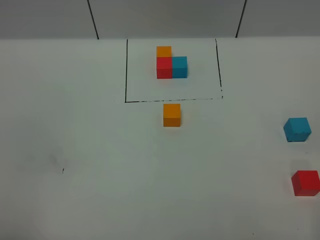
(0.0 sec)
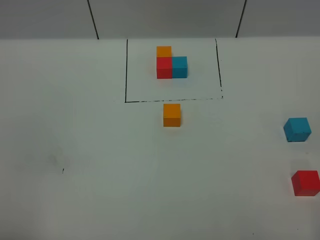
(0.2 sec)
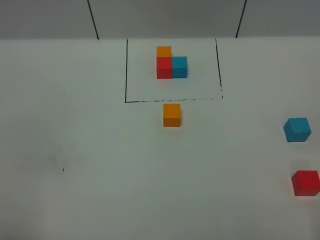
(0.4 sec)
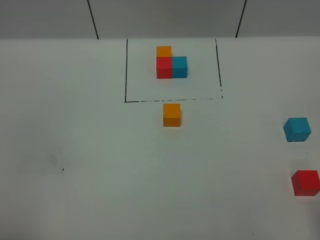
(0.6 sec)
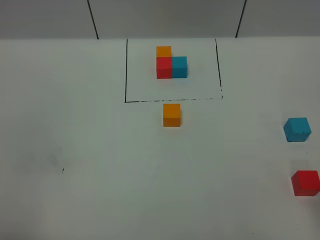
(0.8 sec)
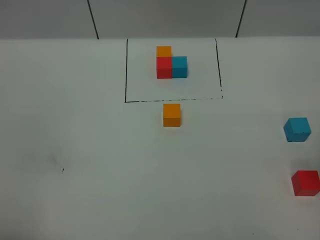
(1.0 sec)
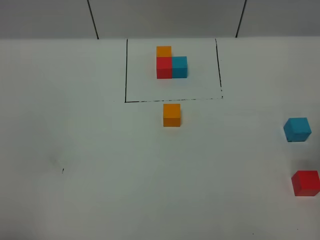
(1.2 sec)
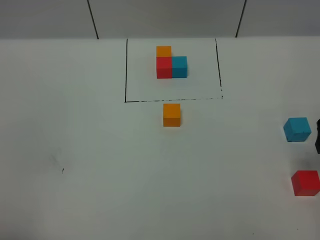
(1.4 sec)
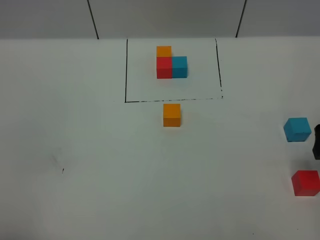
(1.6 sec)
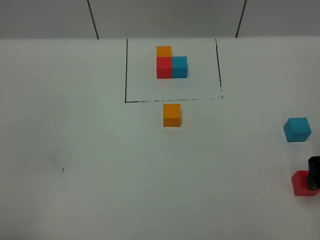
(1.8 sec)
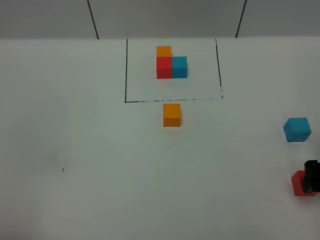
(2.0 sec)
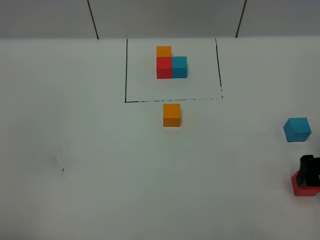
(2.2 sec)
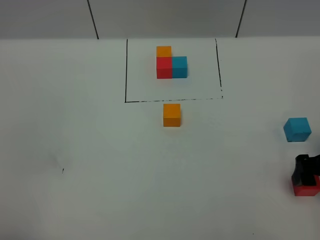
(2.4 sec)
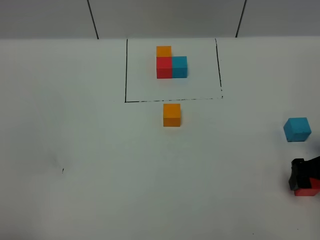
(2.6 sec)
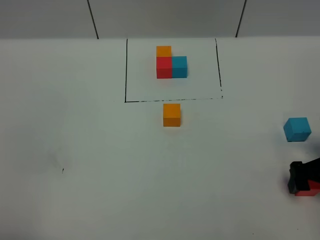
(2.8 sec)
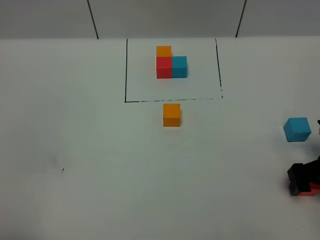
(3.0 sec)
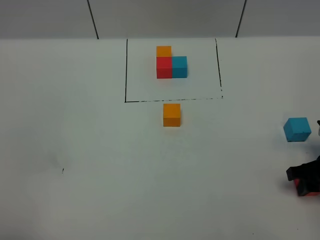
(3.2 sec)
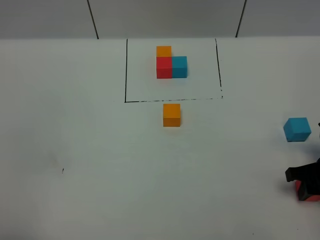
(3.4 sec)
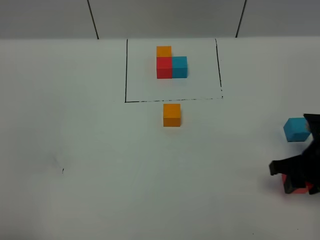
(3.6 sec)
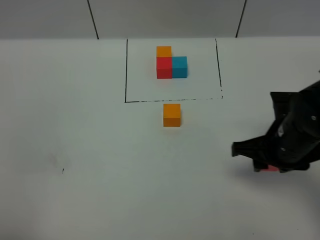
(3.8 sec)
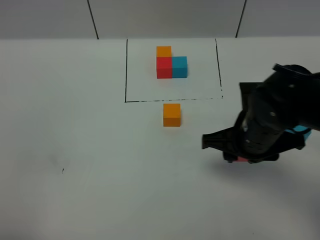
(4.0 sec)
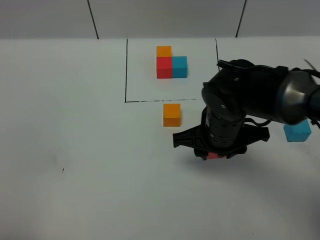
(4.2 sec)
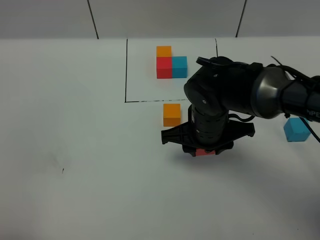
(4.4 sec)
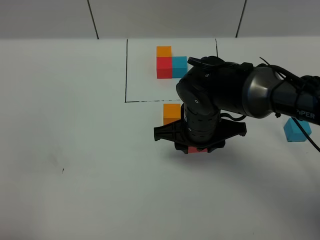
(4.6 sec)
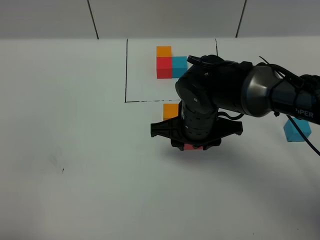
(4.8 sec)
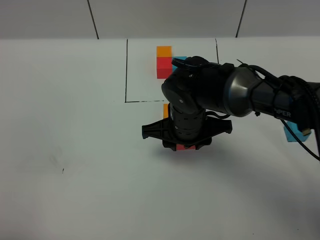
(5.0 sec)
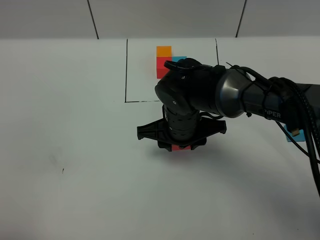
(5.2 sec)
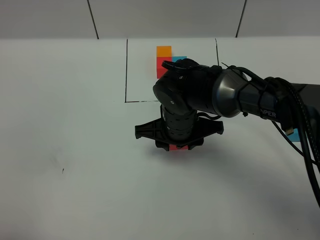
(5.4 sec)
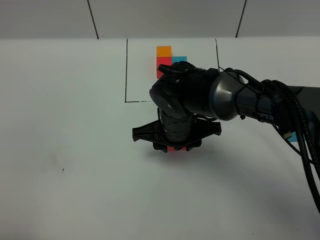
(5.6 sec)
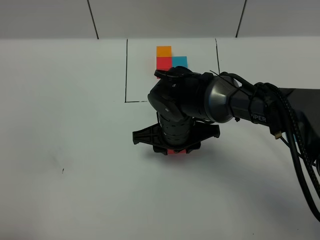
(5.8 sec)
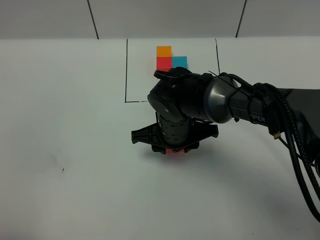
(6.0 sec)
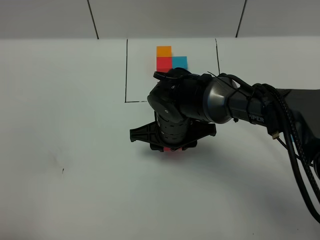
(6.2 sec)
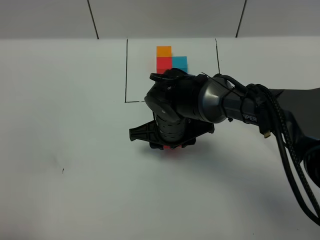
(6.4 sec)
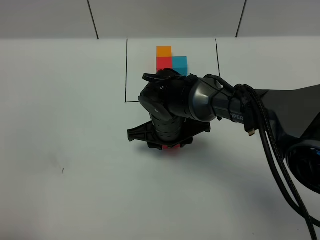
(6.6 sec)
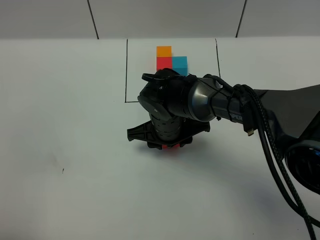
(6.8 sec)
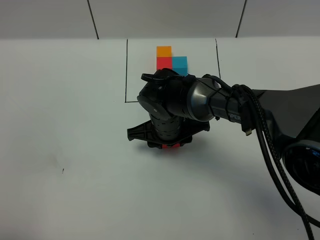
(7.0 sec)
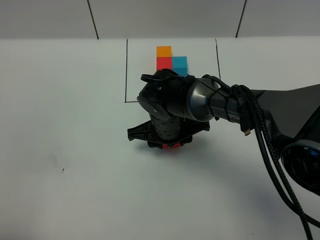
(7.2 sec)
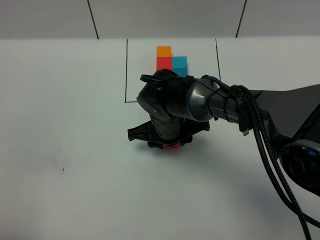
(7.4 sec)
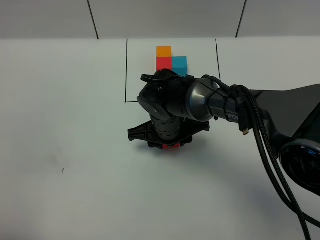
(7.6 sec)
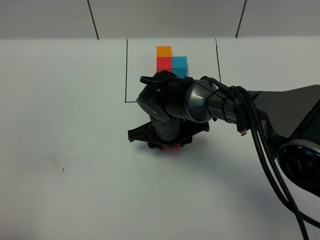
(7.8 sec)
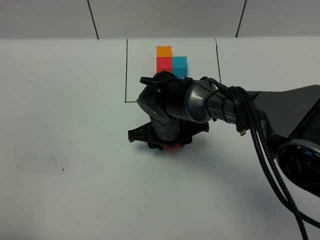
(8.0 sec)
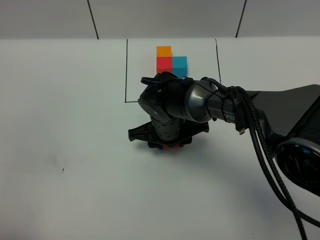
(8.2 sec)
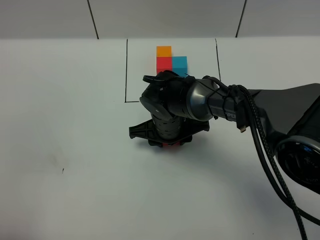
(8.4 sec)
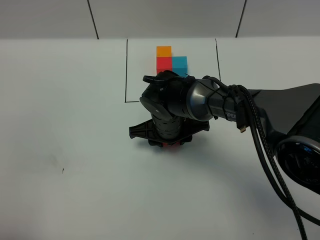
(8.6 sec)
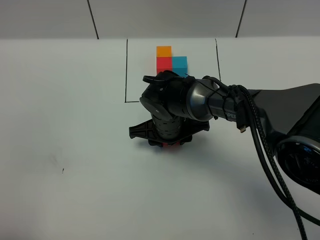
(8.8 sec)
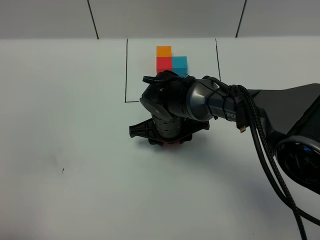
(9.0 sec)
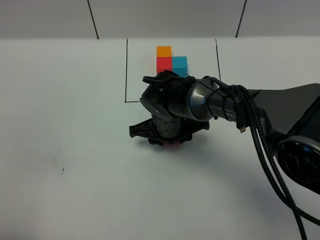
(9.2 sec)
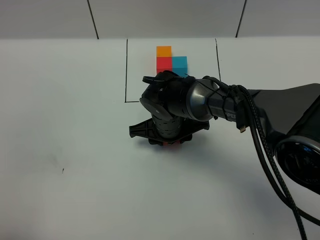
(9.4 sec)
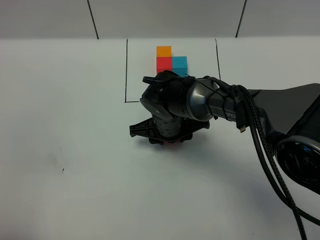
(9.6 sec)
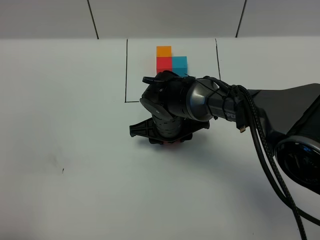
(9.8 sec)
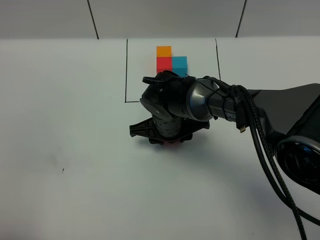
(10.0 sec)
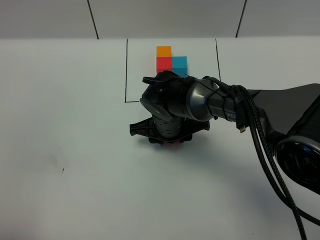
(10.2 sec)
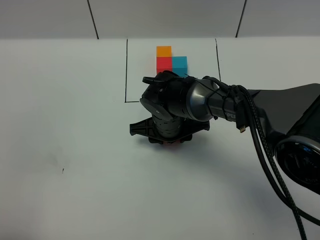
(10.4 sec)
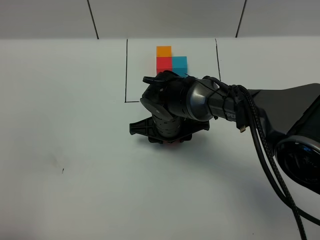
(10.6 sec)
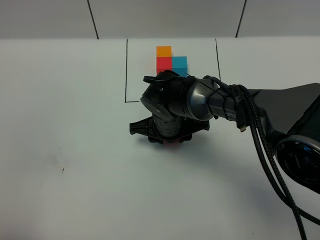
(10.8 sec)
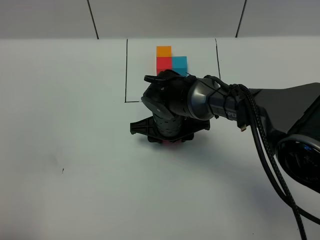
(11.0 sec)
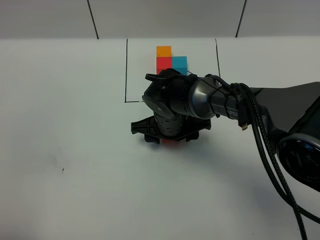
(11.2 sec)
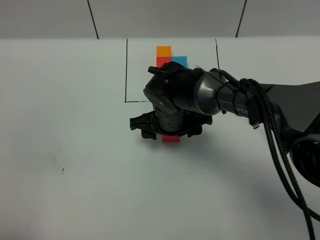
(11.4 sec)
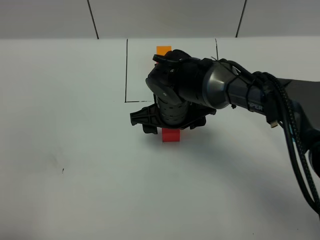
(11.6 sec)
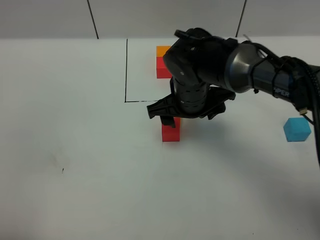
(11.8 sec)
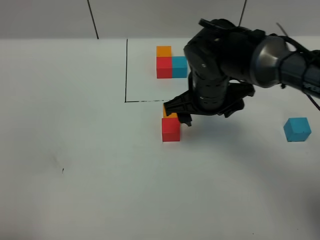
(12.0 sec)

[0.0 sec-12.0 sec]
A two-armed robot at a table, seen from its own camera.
Task of the whole recording: According to the building block template in front, assemble the scattered blocks together.
Step, 0.0 sec to 11.4 sec: Put the red build block on the behind of the orange build block.
0.0 sec to 1.6 sec: The right gripper goes about 25 cm forward, and opens.
1.6 sec to 3.0 sec: The right gripper is displaced downward by some 10 cm.
3.0 sec to 4.4 sec: The right gripper goes about 25 cm to the left, and closes.
4.4 sec to 6.0 sec: The right gripper goes roughly 5 cm to the left.
6.0 sec to 7.6 sec: There are only small adjustments of the grippers.
7.6 sec to 10.4 sec: Neither gripper changes place.
10.4 sec to 12.0 sec: The right gripper goes approximately 10 cm upward and to the right, and opens its fingers.

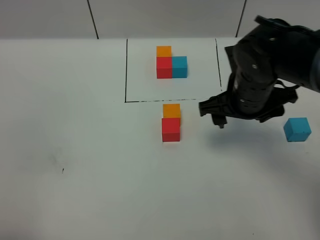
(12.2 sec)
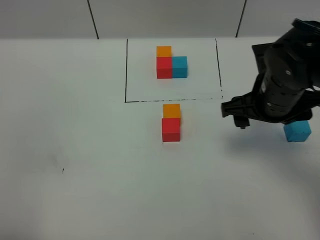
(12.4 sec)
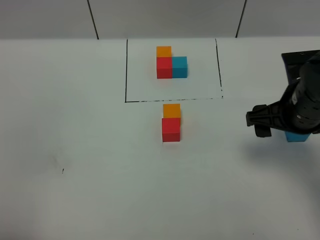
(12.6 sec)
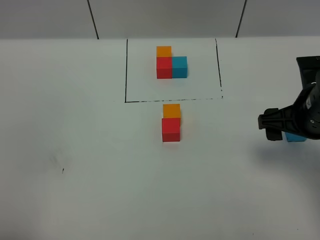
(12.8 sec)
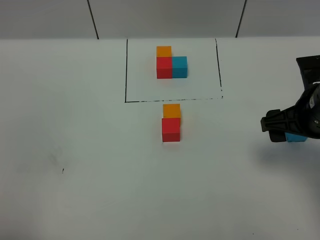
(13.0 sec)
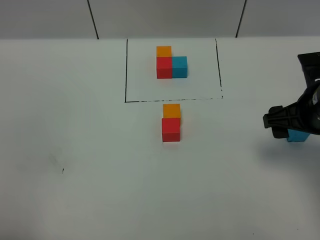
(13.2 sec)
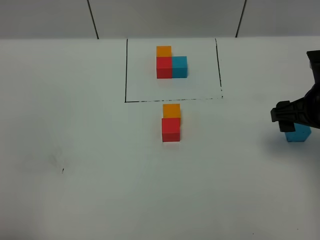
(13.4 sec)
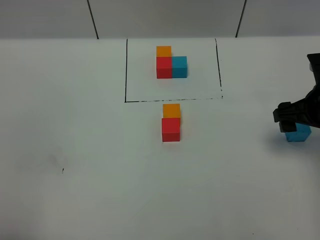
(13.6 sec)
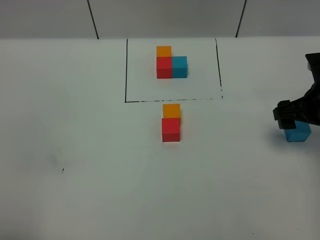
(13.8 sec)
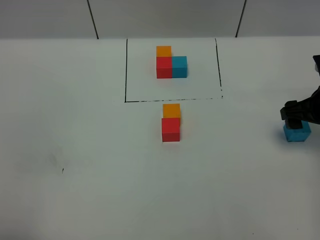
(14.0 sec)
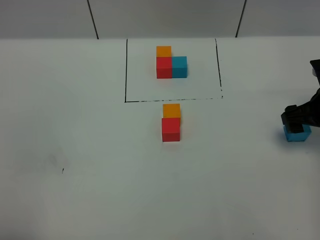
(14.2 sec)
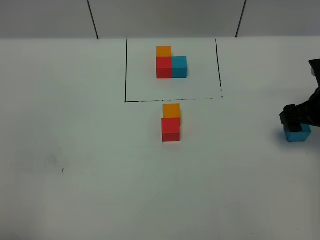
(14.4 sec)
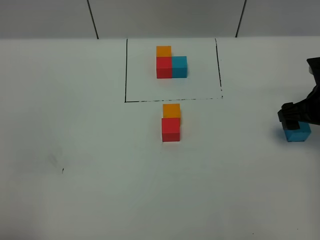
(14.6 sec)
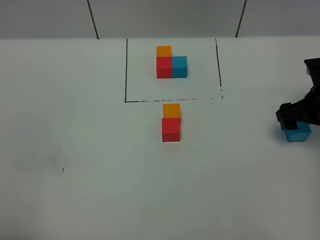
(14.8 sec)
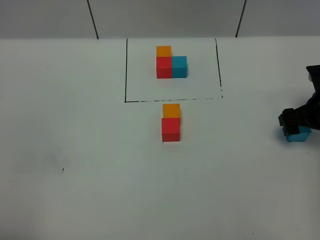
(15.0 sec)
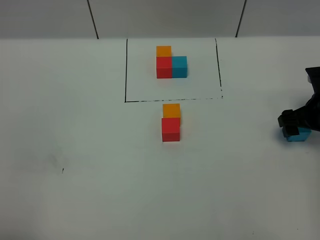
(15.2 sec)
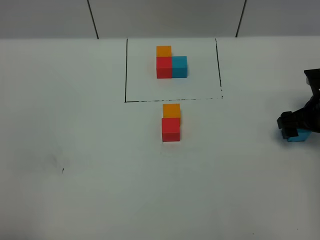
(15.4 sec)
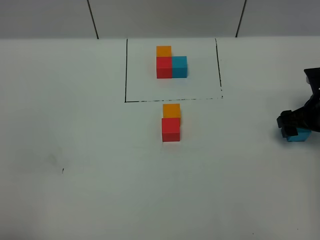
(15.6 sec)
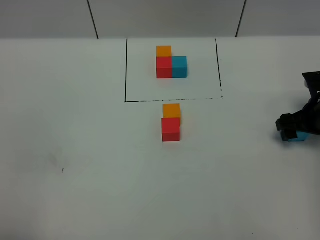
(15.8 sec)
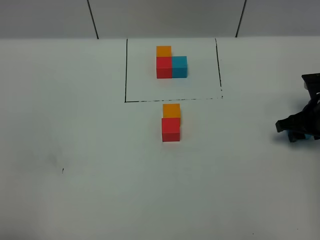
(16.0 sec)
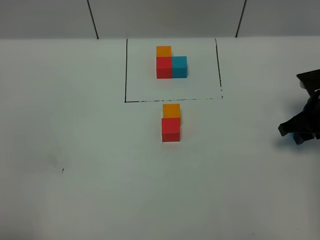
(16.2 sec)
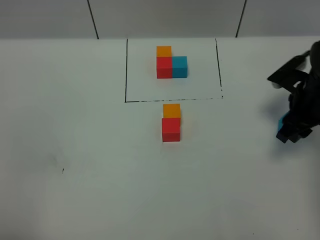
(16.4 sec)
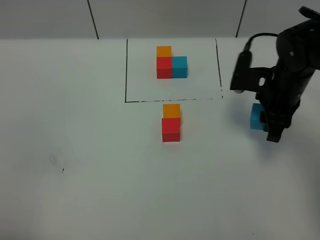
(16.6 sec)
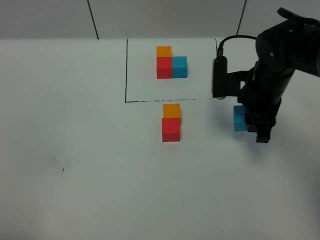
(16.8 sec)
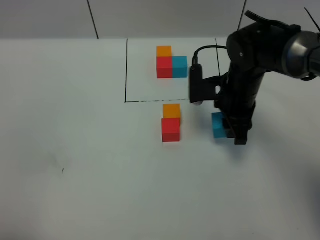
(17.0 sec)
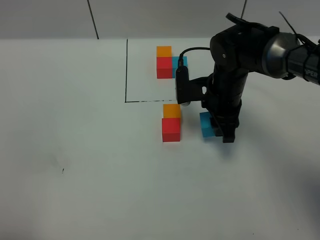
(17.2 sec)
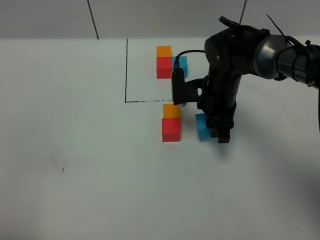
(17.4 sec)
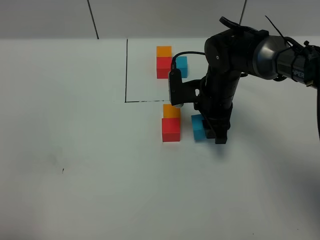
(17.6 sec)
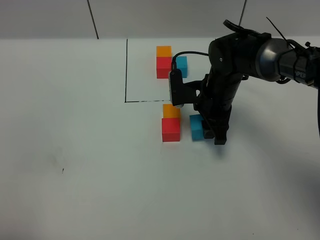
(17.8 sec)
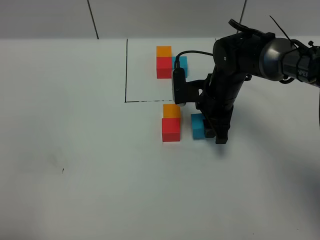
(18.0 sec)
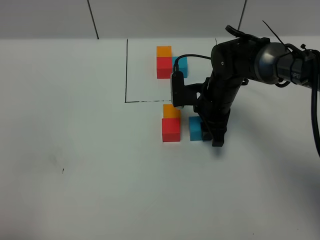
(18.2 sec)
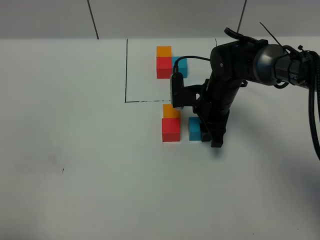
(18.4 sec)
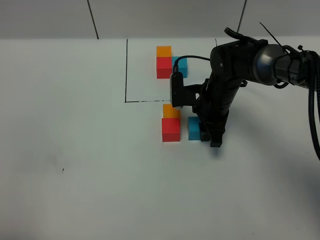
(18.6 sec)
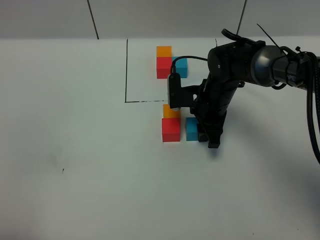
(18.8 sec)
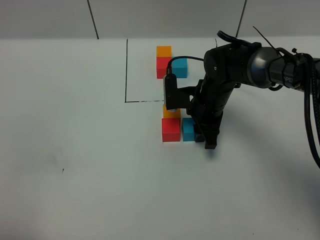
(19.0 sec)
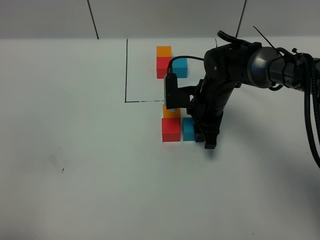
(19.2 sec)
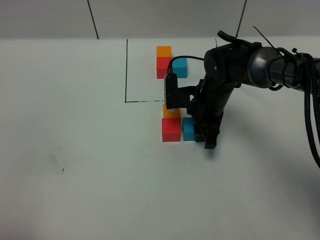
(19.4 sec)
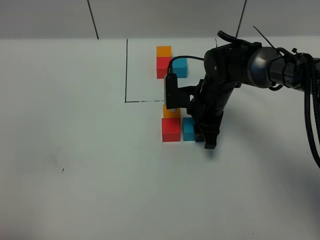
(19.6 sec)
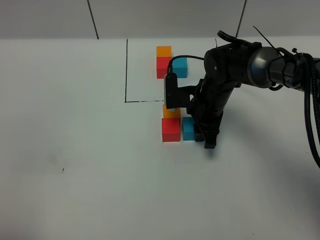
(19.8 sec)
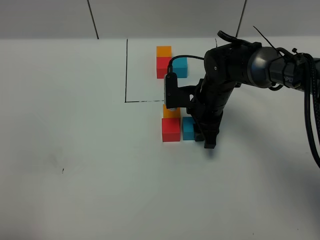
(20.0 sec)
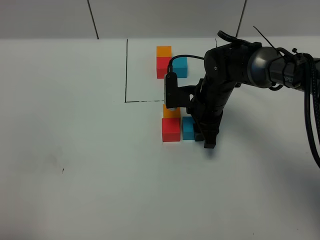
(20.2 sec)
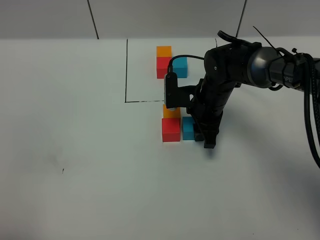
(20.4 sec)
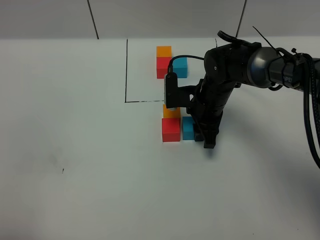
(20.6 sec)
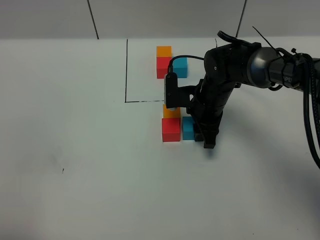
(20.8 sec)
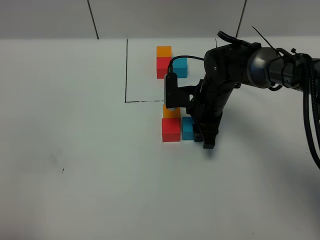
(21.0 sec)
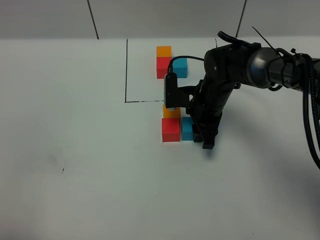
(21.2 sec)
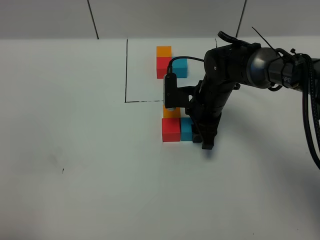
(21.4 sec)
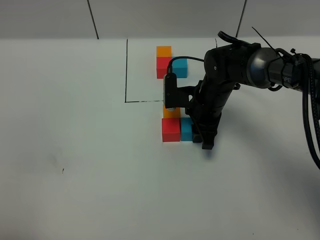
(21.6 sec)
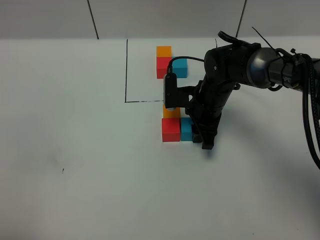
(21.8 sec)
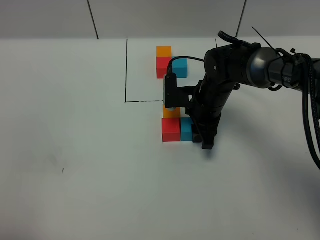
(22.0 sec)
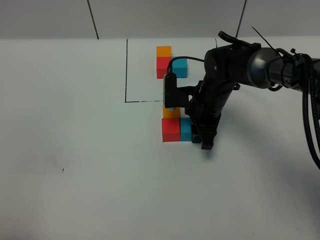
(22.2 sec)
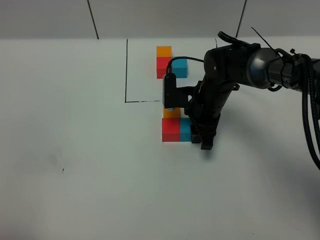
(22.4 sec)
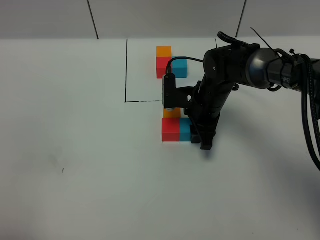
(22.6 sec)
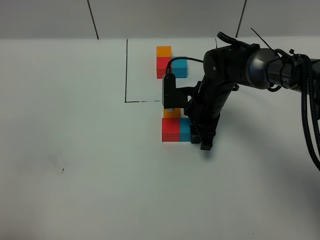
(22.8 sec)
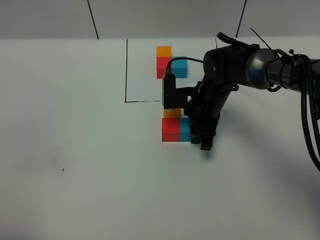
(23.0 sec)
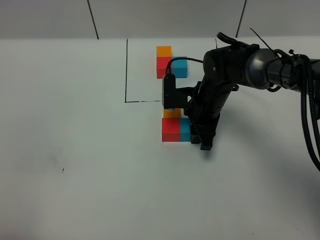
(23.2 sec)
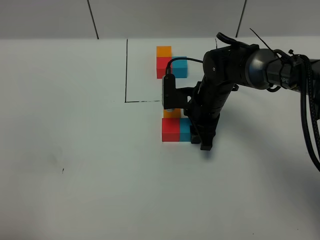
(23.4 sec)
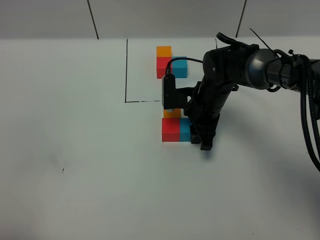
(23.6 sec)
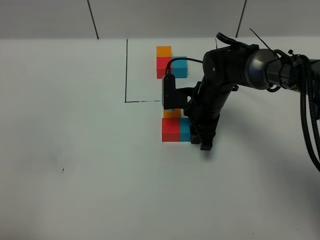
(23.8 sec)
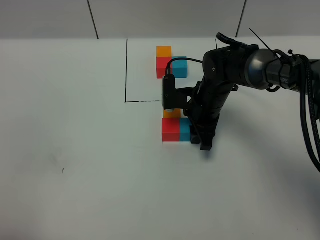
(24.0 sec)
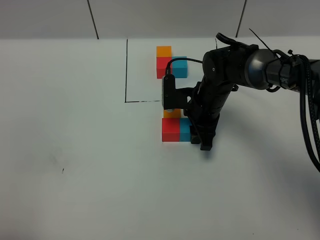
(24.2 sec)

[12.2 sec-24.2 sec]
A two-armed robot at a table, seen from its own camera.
Task of the whole recording: According to the building block template in front, assemble the scattered blocks together.
12.2 sec to 13.8 sec: The right gripper goes some 15 cm to the right.
13.8 sec to 15.2 sec: The right gripper heads downward, covering roughly 5 cm.
15.2 sec to 16.6 sec: The right gripper goes approximately 15 cm to the left and upward, and closes up.
16.6 sec to 18.2 sec: The right gripper moves to the left and downward, approximately 10 cm.
18.2 sec to 19.8 sec: The two grippers keep their place.
19.8 sec to 24.2 sec: Neither gripper changes place.
